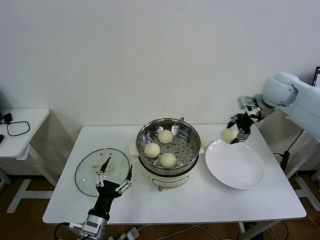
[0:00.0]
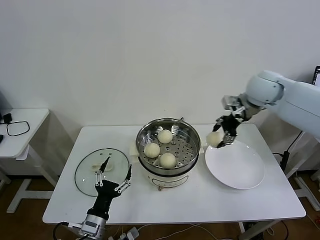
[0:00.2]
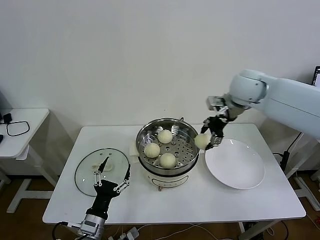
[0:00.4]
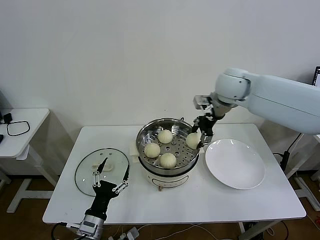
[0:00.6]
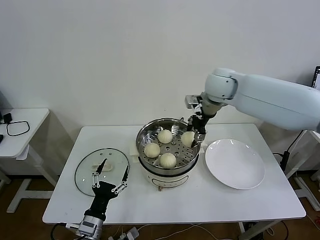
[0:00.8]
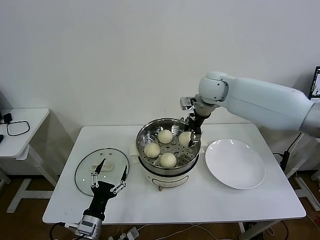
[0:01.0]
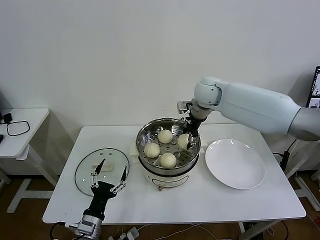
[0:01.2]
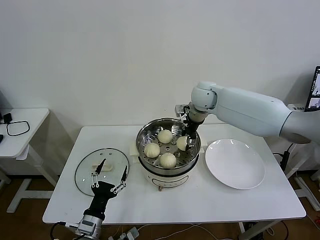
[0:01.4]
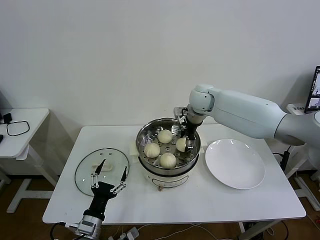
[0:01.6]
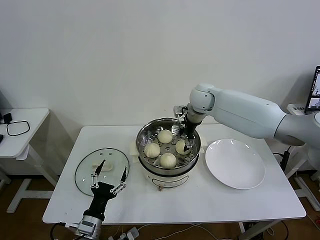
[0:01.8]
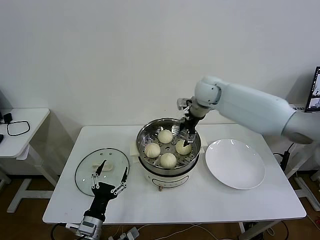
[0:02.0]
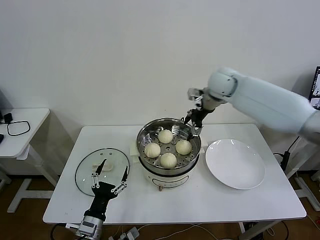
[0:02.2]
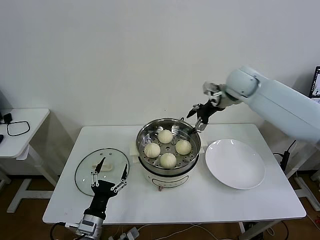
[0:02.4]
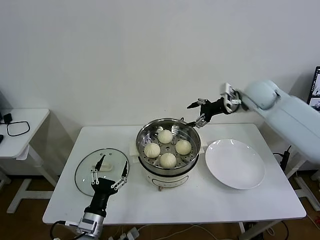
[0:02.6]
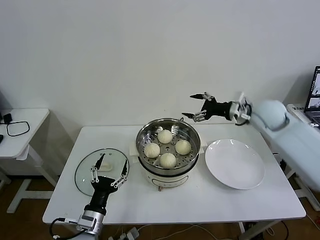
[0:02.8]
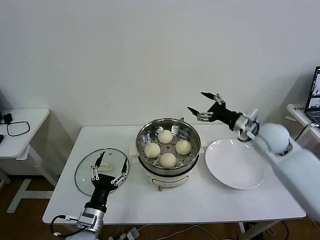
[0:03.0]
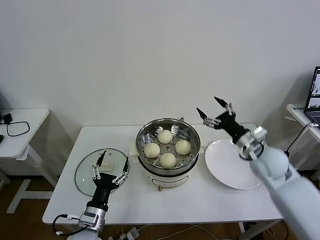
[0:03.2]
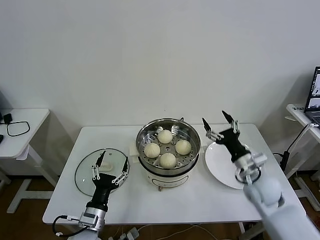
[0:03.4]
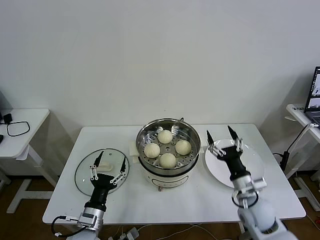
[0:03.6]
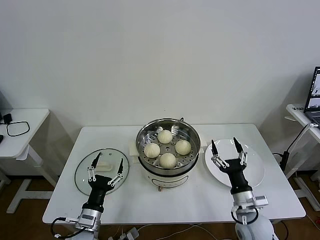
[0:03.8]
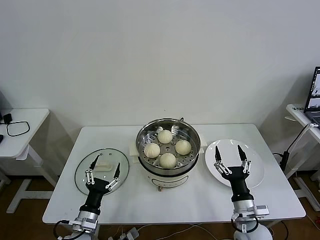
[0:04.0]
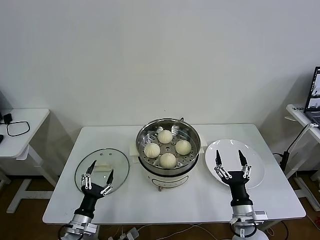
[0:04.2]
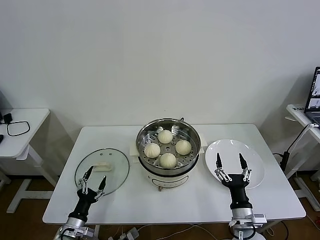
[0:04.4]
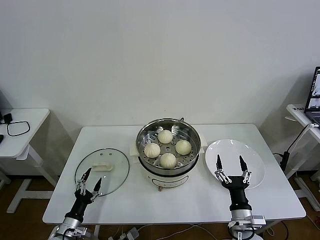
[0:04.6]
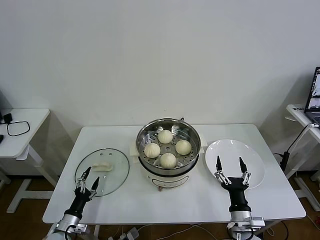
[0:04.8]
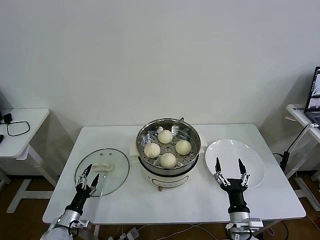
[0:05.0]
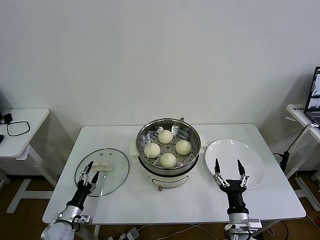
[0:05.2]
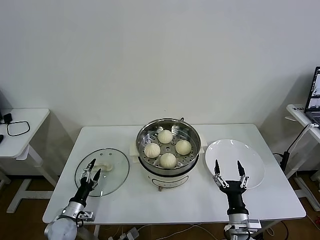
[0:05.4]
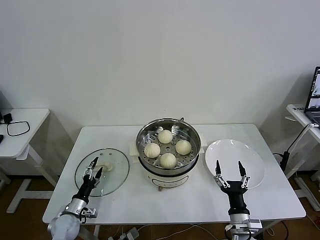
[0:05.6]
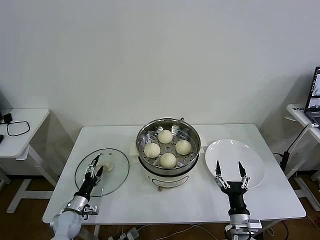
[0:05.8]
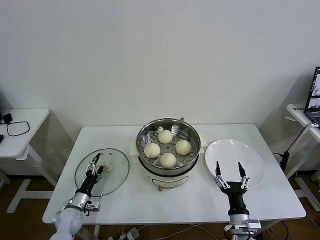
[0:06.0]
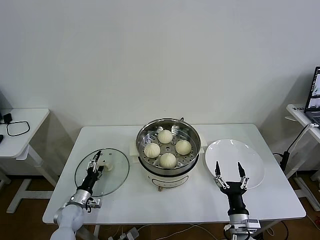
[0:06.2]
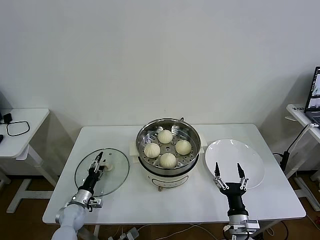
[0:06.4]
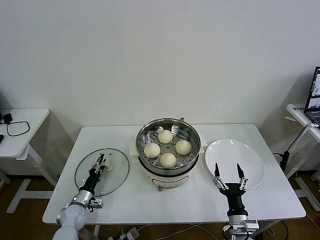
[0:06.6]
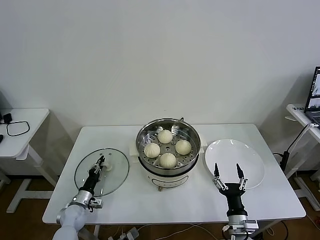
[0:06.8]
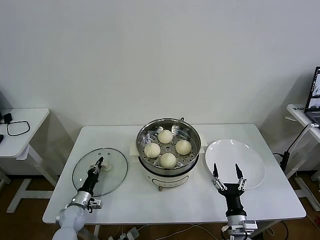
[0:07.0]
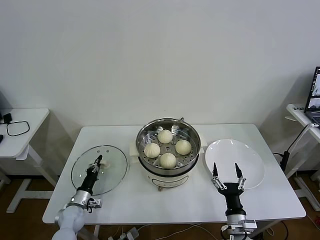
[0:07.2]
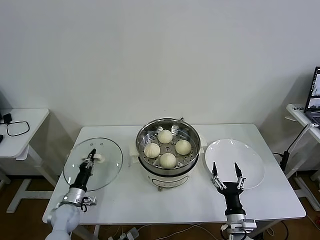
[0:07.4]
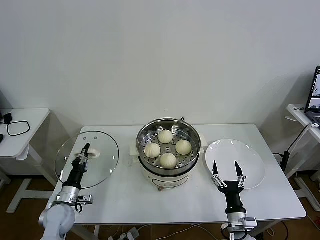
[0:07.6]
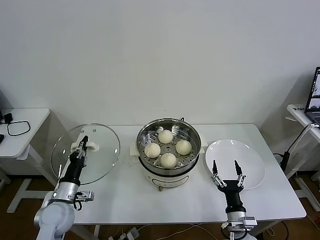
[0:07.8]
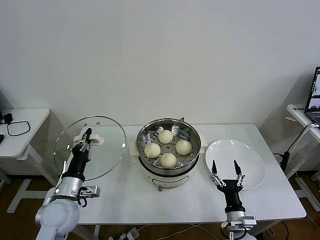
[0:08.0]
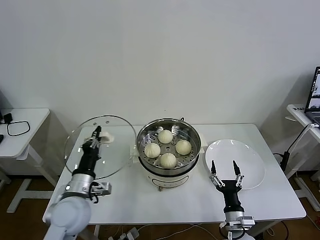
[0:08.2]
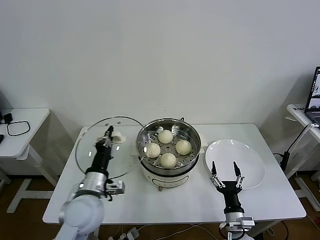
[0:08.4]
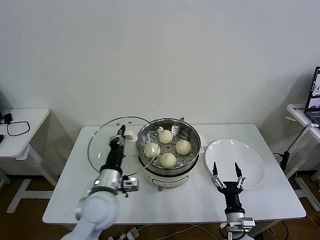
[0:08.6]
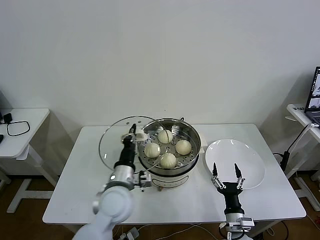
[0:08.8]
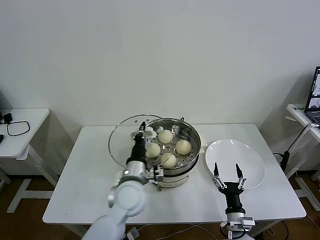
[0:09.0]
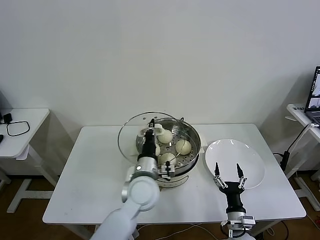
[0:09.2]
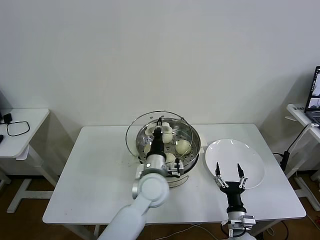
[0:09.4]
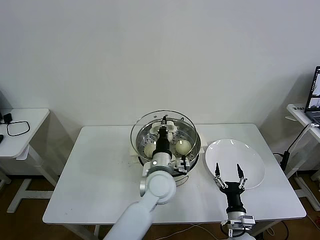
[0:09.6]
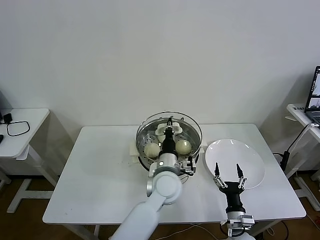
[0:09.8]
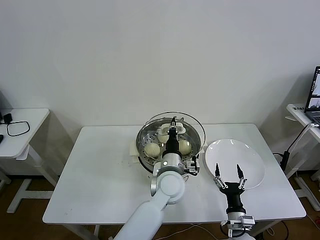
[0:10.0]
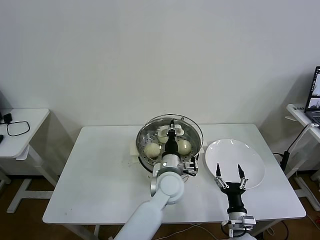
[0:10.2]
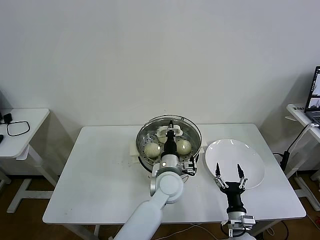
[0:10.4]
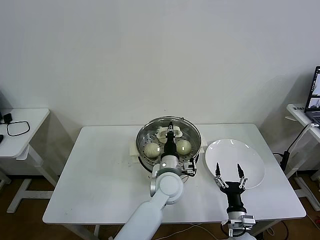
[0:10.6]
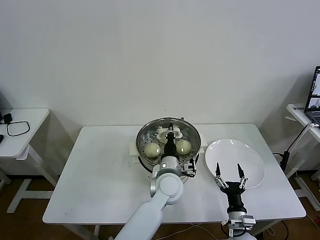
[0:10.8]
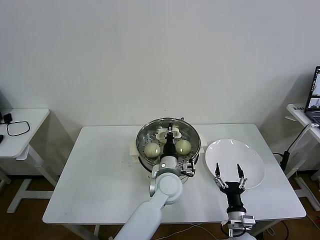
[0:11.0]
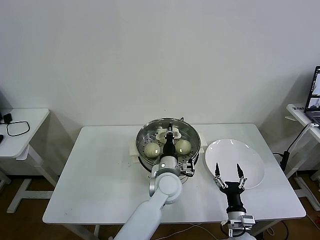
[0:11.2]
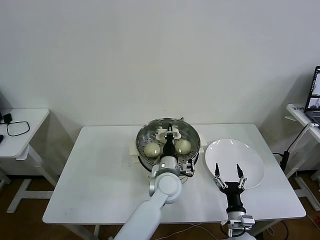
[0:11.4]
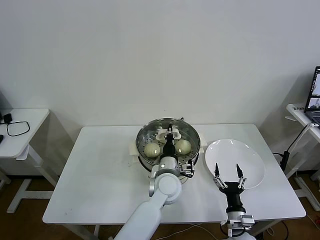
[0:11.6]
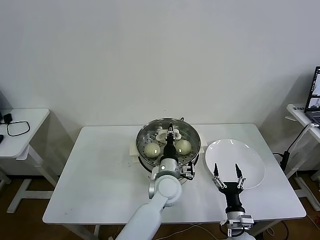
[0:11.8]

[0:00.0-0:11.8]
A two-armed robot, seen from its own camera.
Task of the whole recording: take steamed baozi put them in steamer then cover it.
Step, 0:00.0 to 0:01.8: Place the baozi on the steamer with right gripper.
Step, 0:02.0 to 0:07.0: Grasp the pot lid with left gripper.
0:00.0 to 0:01.4: The right gripper is displaced to the left by roughly 20 cm.
0:01.4 to 0:03.0: The right gripper moves to the right and backward, some 25 cm, and opens.
0:03.0 to 0:04.4: The left gripper heads downward and to the left, covering about 15 cm. The right gripper goes approximately 30 cm backward and downward.
0:04.4 to 0:06.0: The left gripper moves forward, approximately 10 cm.
0:06.0 to 0:07.4: The left gripper closes up.
0:07.4 to 0:08.8: The left gripper goes about 30 cm to the right and upward.
0:08.8 to 0:10.4: The left gripper is displaced to the right and forward by some 15 cm.
0:10.4 to 0:11.8: There are only small adjustments of the grippers.

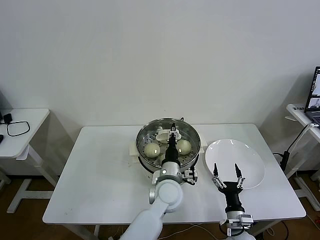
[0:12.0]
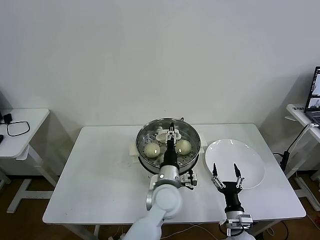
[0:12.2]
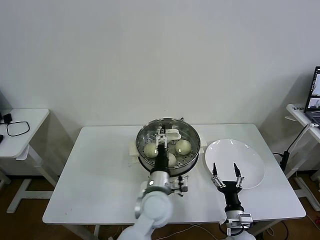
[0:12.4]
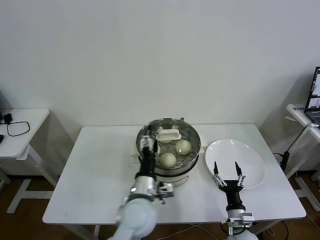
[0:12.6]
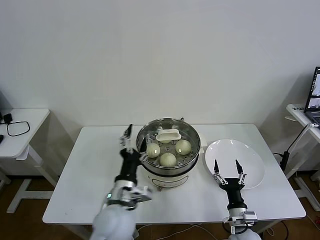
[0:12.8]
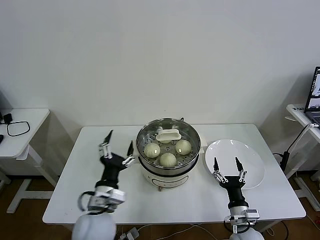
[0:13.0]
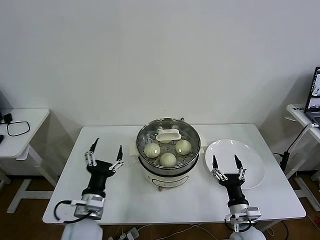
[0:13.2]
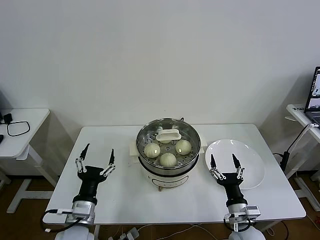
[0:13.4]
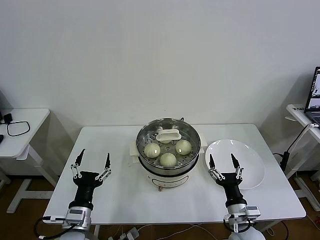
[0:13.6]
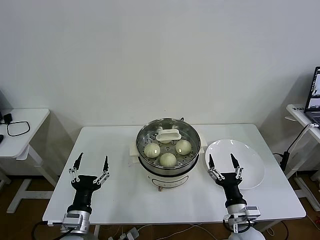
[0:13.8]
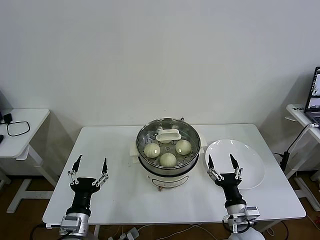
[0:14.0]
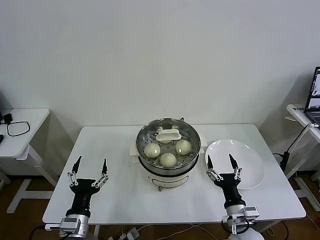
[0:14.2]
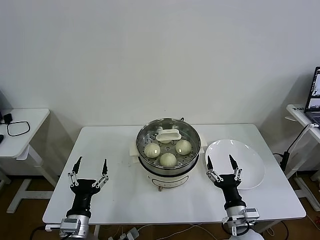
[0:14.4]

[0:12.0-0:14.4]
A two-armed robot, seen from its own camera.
Task of the whole recording: take steamed baozi put them in steamer then cover it.
0:12.0 to 0:13.2: The left gripper goes about 25 cm to the left and backward, and opens its fingers, while the right gripper goes some 5 cm upward.
0:13.2 to 0:14.4: The left gripper moves some 10 cm.
